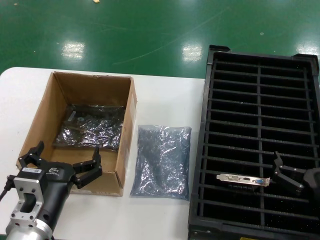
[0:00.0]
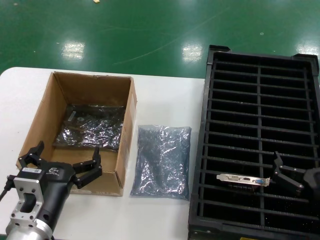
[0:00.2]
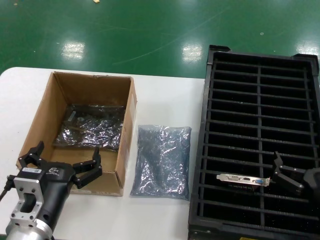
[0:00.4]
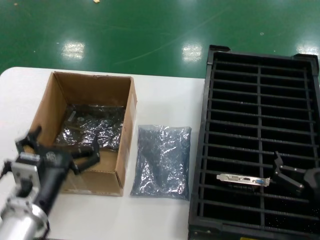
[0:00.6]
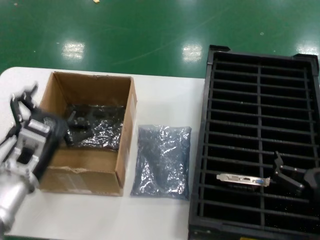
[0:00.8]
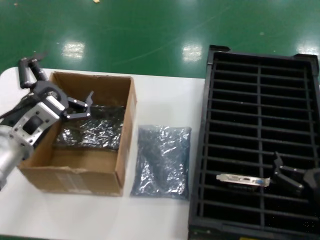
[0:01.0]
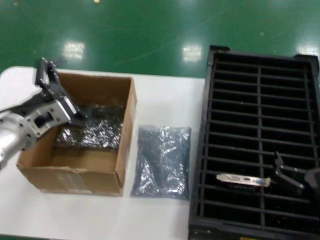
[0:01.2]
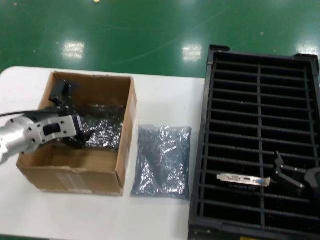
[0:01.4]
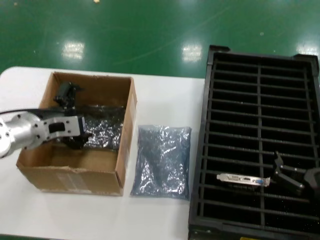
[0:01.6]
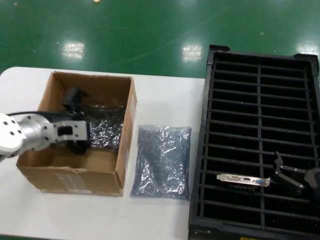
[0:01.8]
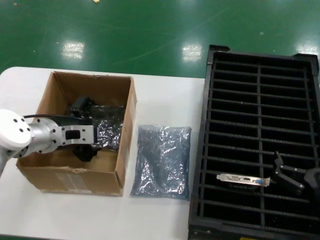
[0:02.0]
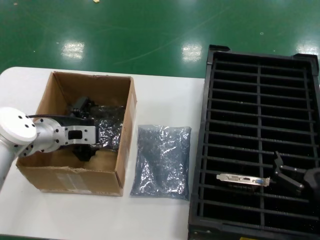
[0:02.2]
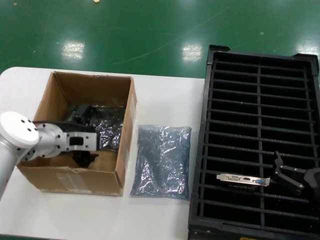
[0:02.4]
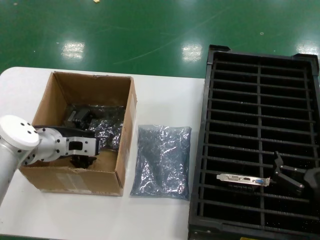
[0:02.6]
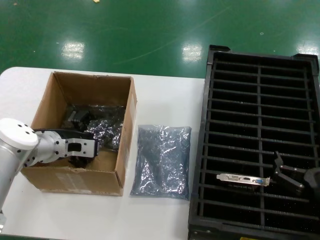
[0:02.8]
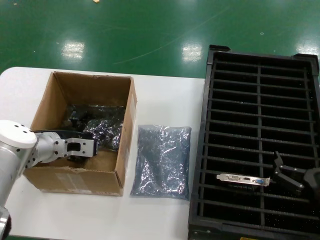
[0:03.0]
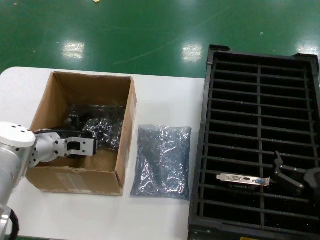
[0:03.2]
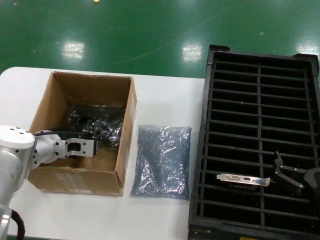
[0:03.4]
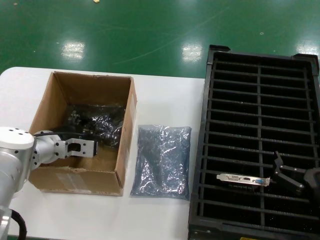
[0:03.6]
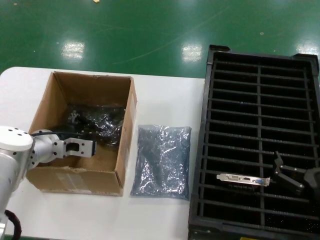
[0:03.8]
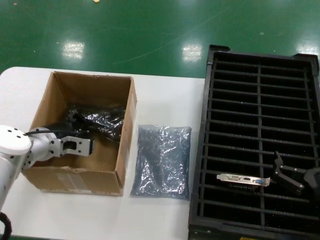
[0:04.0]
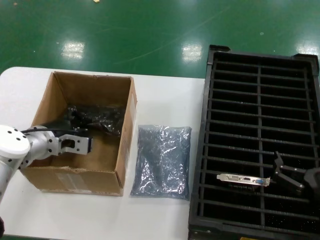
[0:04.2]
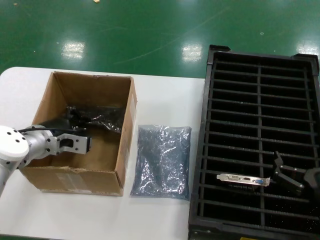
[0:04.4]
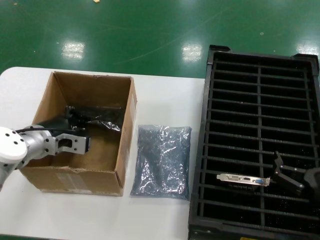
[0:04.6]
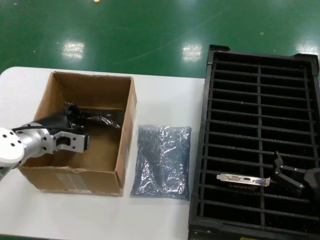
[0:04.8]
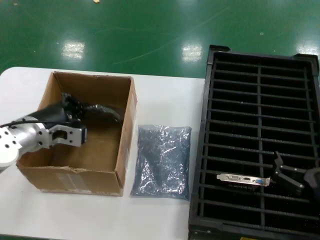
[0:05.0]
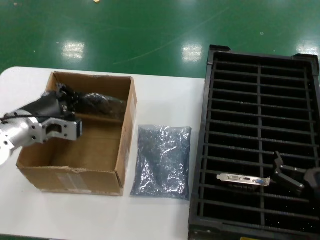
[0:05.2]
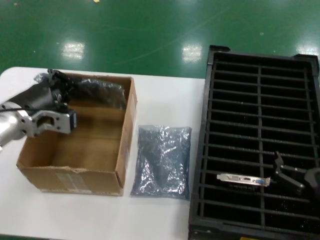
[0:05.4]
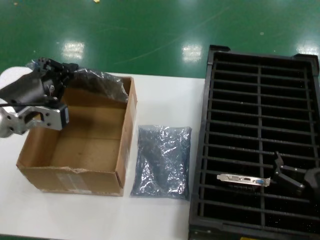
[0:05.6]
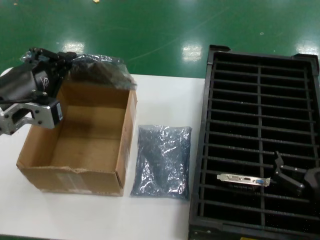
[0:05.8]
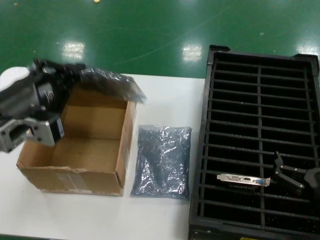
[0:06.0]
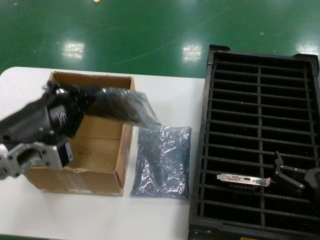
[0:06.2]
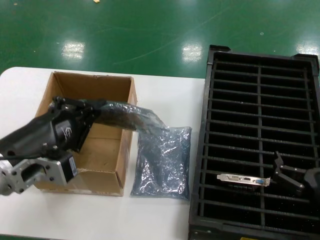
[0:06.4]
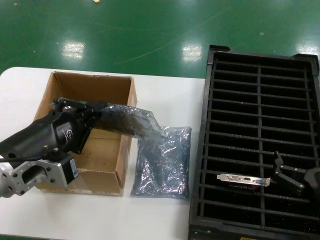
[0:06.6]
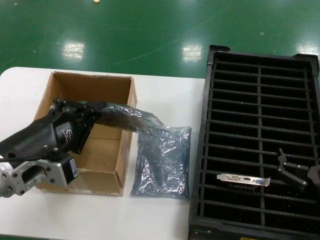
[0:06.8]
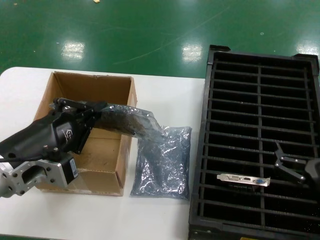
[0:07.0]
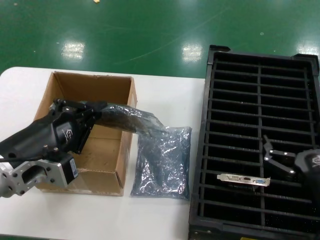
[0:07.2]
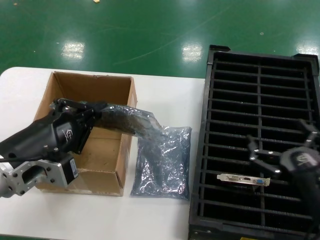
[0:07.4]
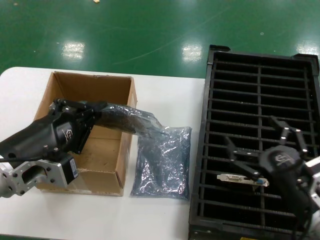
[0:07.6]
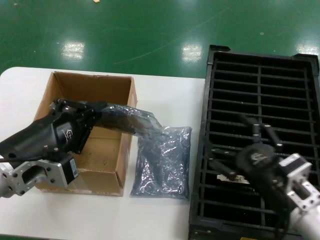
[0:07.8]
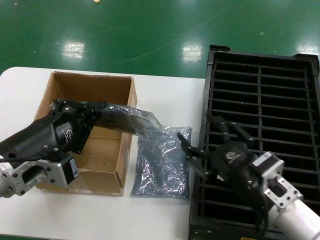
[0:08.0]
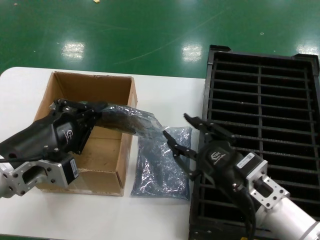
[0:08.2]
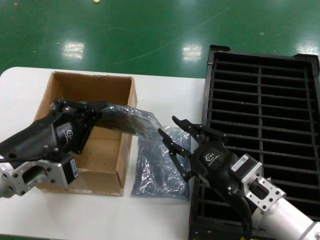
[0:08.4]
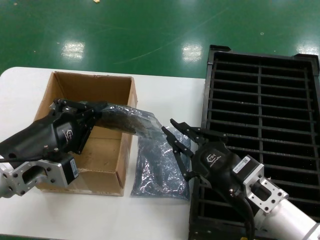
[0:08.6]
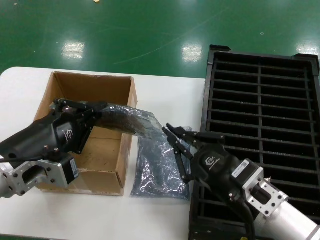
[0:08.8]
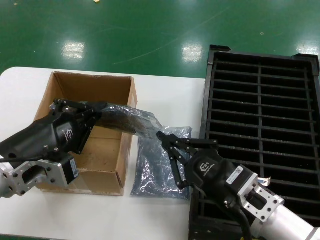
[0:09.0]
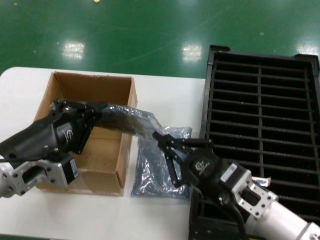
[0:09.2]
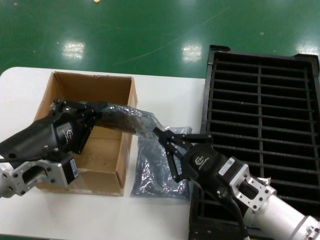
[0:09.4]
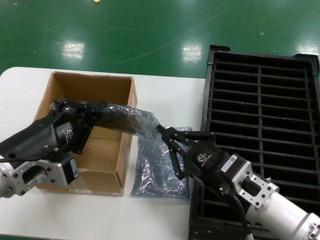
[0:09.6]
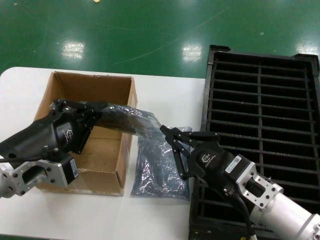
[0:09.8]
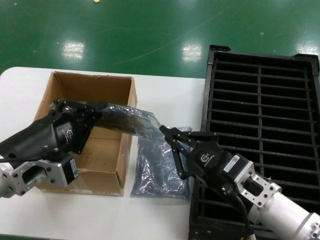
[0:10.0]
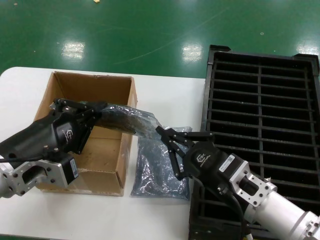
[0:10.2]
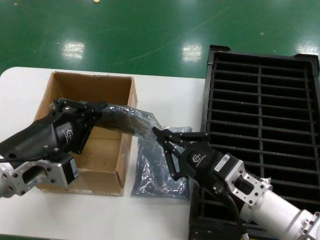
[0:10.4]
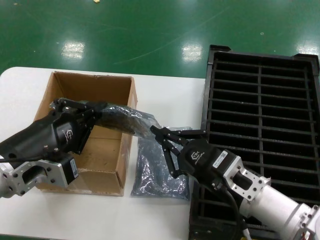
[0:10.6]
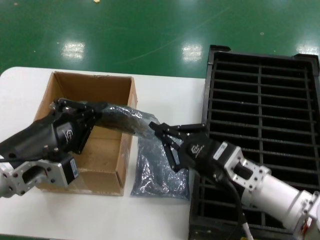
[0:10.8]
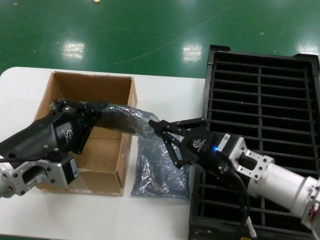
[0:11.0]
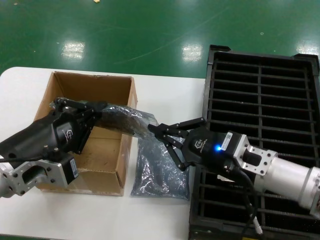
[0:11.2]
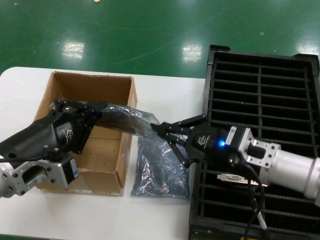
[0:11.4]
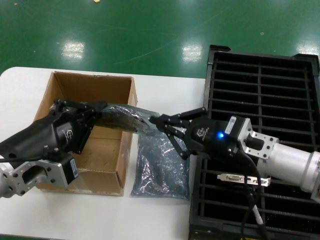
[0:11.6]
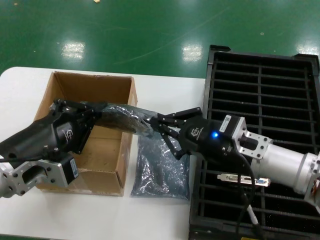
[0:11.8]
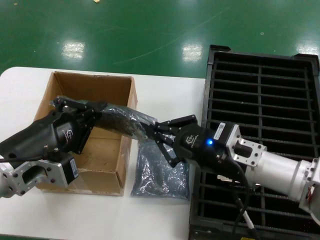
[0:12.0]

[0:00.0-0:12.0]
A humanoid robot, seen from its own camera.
Task of the whole recording: take out graphics card from box remove packaging put into black container.
Step, 0:00.0 to 0:04.0: Grasp the bag.
Step, 0:04.2 to 0:06.8: Lift the bag.
0:00.0 to 0:01.6: The left hand goes approximately 25 cm forward, upward and to the left.
0:01.6 to 0:03.0: The left hand heads downward, covering roughly 5 cm.
0:03.0 to 0:04.4: The hands make only small movements.
0:04.4 to 0:06.0: The left hand travels backward and upward by about 20 cm.
0:06.0 to 0:07.6: The left hand moves roughly 5 cm.
0:07.6 to 0:09.0: The right hand moves to the left, approximately 10 cm.
0:09.0 to 0:10.4: The hands stay close to where they were, moving slightly.
0:10.4 to 0:12.0: The right hand is displaced forward by approximately 5 cm.

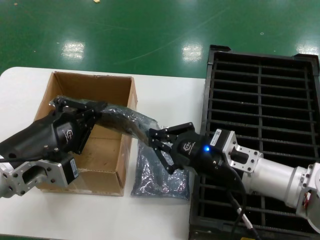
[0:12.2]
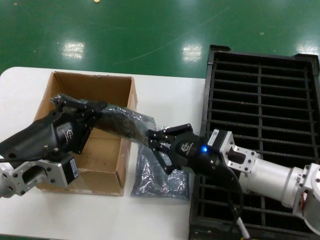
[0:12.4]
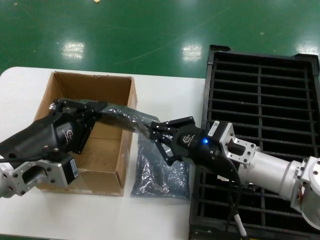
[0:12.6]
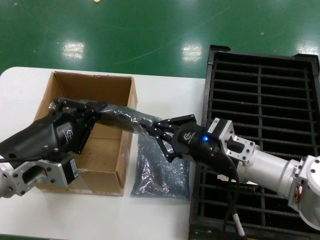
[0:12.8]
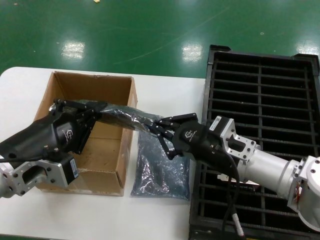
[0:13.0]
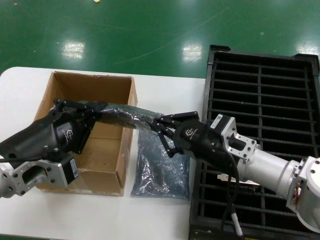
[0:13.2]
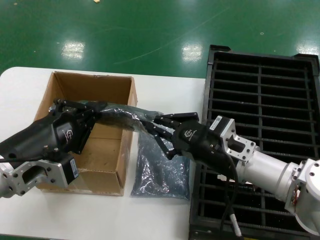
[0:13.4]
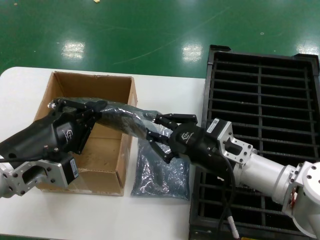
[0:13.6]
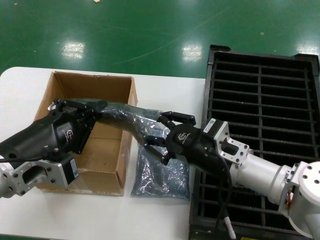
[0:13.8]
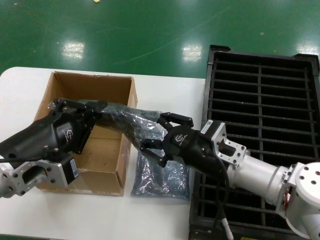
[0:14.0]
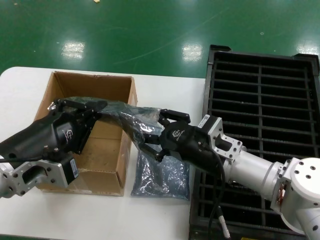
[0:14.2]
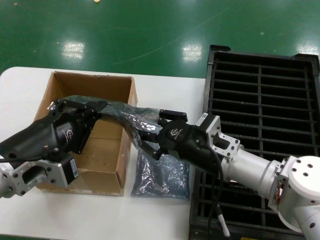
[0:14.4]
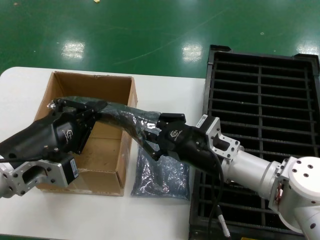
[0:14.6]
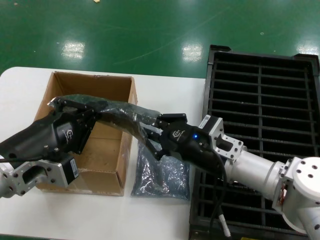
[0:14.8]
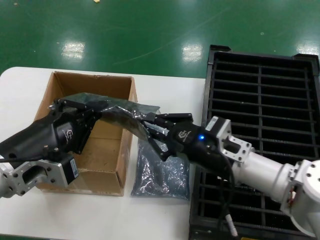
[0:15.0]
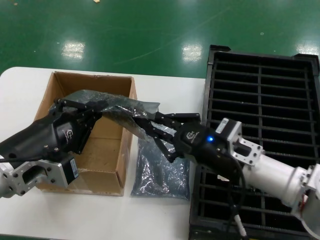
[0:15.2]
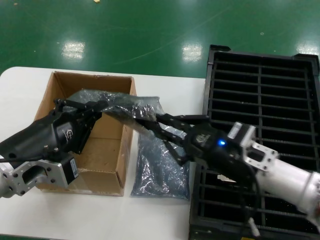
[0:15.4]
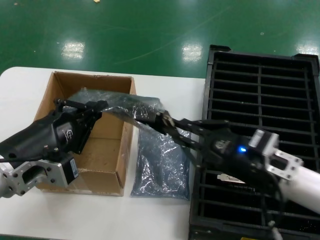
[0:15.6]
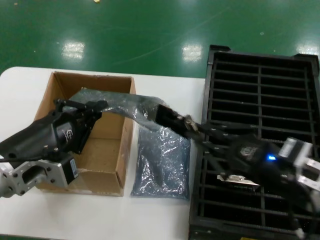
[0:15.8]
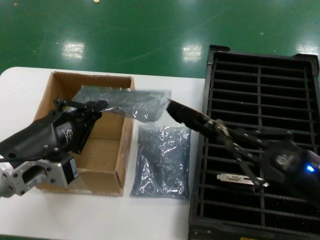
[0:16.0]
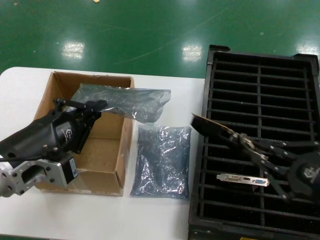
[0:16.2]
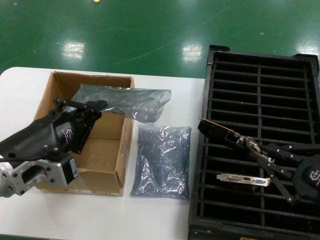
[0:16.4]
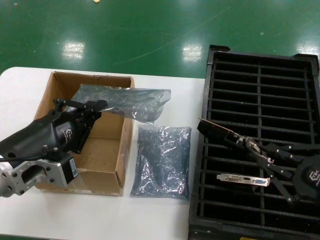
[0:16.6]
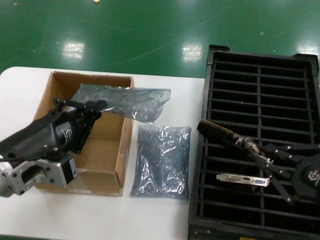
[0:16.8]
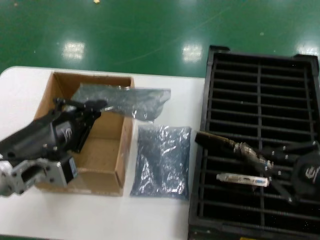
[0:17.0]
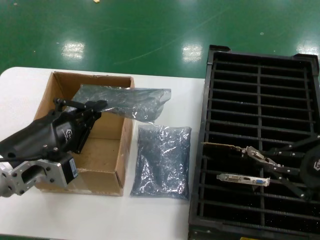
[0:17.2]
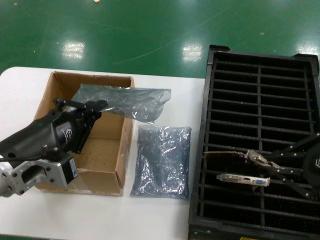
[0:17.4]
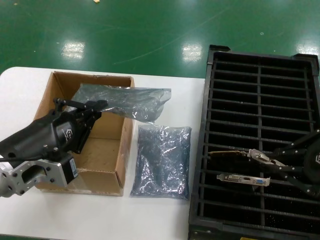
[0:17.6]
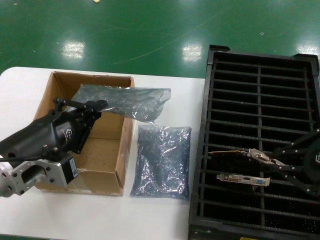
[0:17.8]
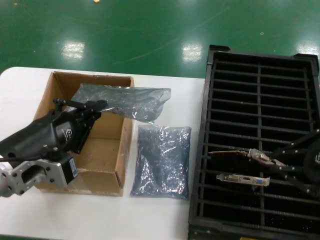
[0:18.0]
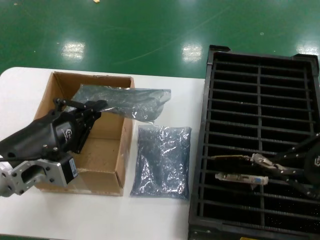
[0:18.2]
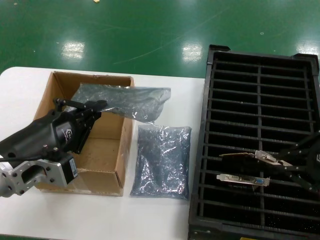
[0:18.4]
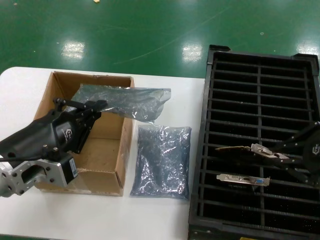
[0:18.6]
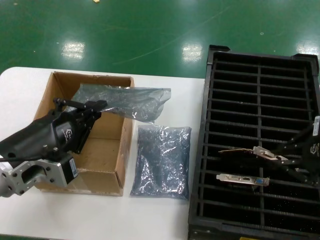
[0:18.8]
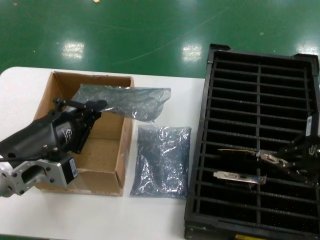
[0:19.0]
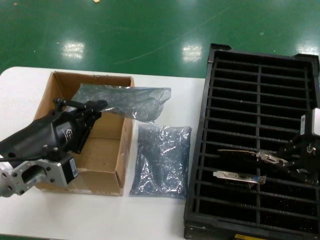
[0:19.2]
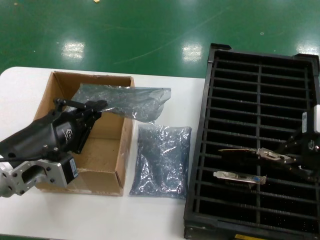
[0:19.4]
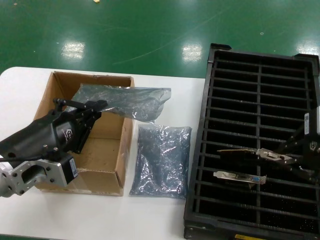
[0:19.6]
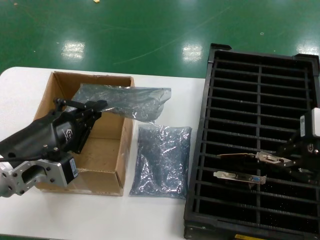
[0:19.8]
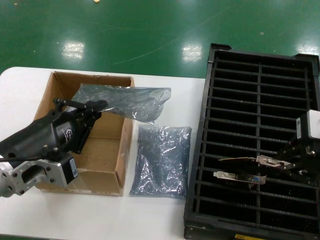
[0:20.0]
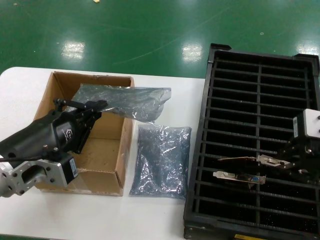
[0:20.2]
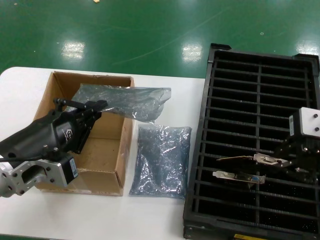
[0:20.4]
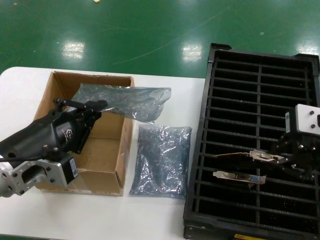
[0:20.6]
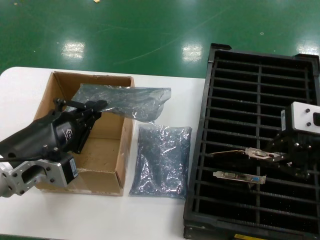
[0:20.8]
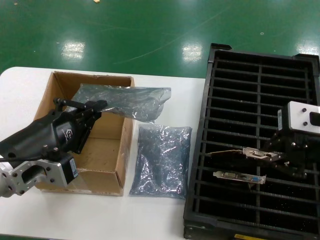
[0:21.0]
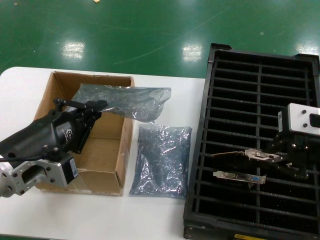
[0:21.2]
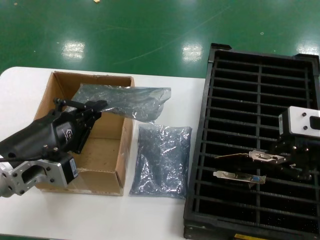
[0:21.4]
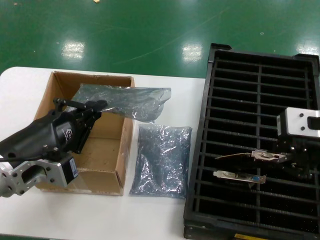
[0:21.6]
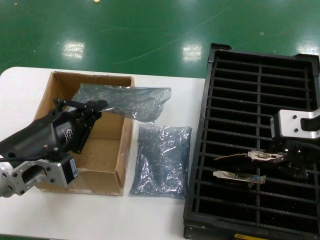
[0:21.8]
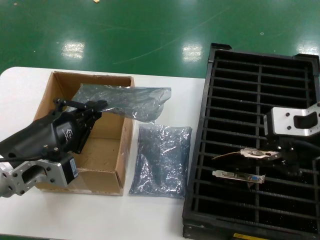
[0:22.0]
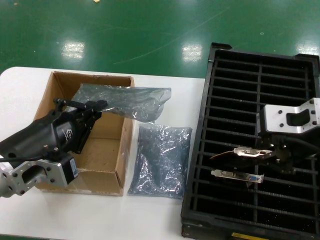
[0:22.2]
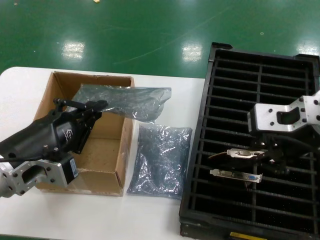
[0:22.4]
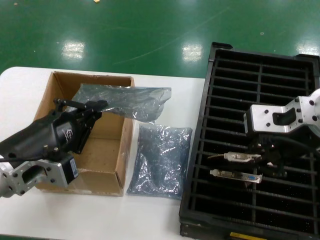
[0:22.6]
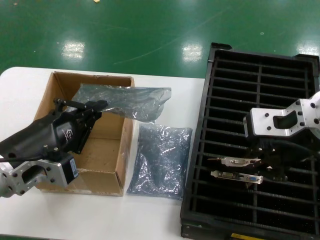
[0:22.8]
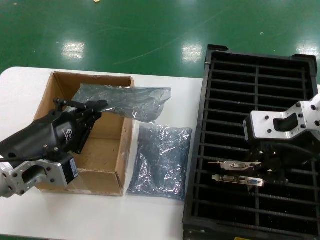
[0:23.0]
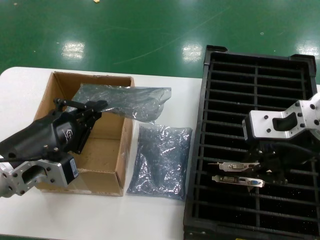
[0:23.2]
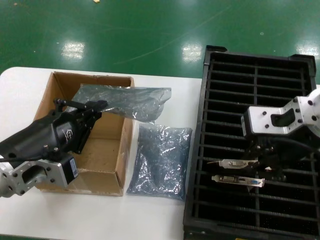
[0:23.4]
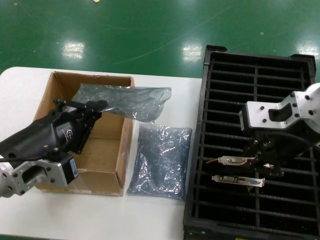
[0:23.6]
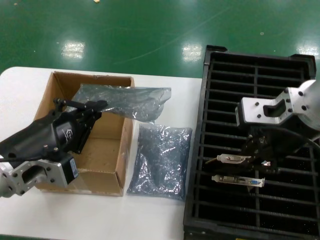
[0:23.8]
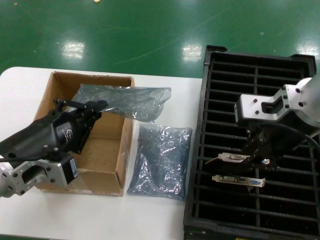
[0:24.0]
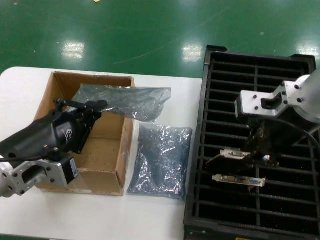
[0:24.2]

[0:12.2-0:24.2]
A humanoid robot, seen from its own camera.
Task of the whole recording: take out graphics card from box remove packaging put into black container.
Step, 0:12.2 to 0:16.0: Take out the hard disk of the bag.
0:12.2 to 0:15.2: There are only small adjustments of the hands.
0:15.2 to 0:16.6: The right hand shifts roughly 20 cm to the right and backward.
0:16.6 to 0:18.2: The right hand goes some 10 cm upward.
0:18.2 to 0:19.8: The right hand ends up approximately 5 cm from where it was.
0:19.8 to 0:21.2: The hands make only small movements.
0:21.2 to 0:22.6: The right hand shifts about 5 cm to the left.
0:22.6 to 0:24.2: The hands move only a little.
